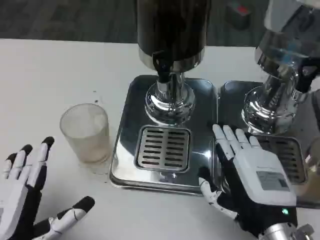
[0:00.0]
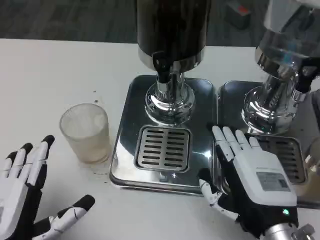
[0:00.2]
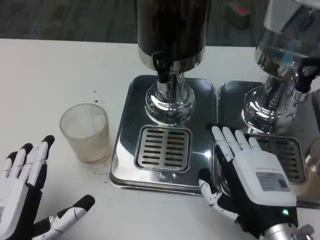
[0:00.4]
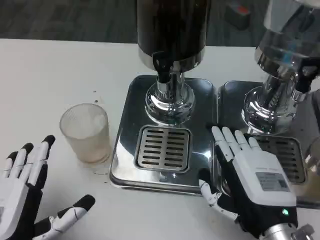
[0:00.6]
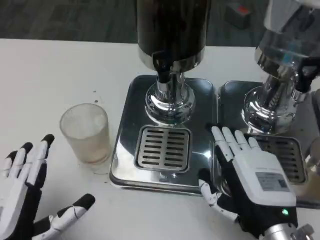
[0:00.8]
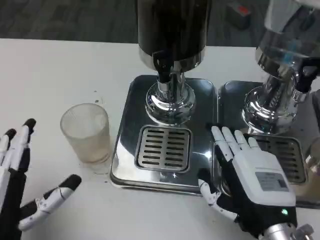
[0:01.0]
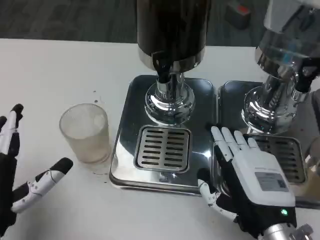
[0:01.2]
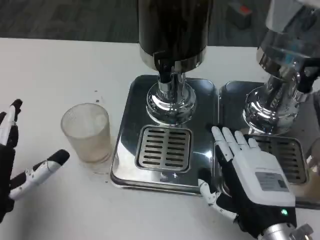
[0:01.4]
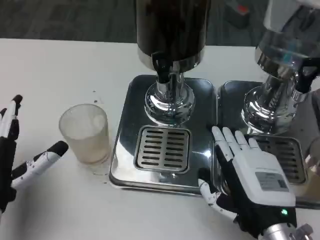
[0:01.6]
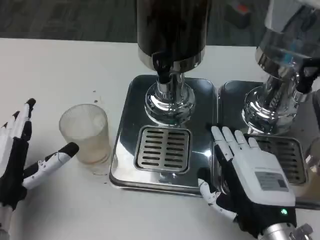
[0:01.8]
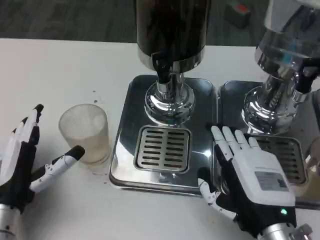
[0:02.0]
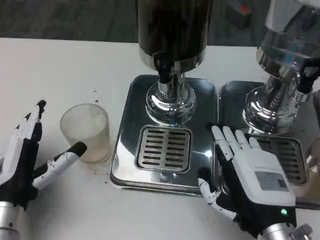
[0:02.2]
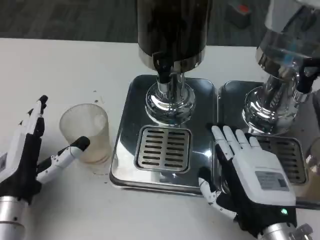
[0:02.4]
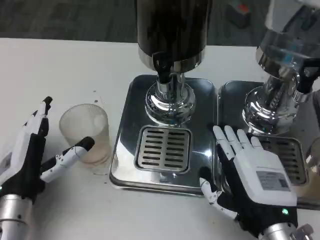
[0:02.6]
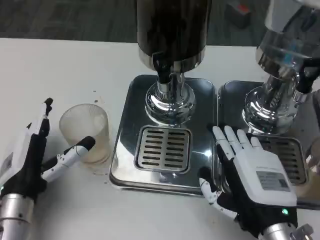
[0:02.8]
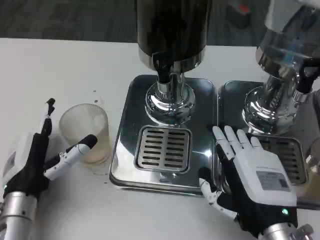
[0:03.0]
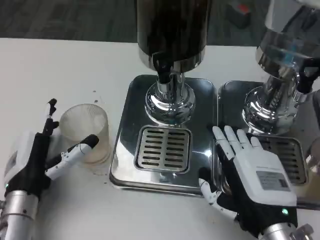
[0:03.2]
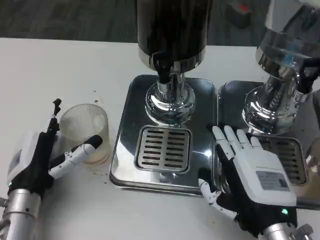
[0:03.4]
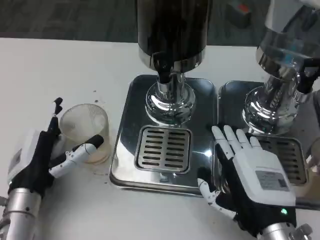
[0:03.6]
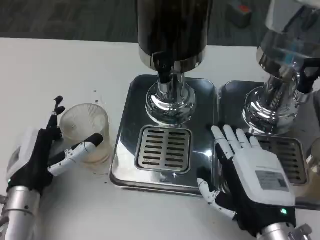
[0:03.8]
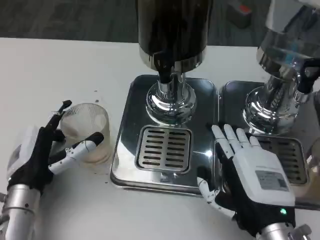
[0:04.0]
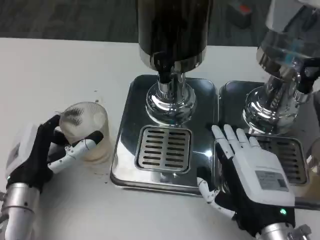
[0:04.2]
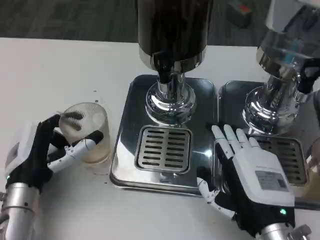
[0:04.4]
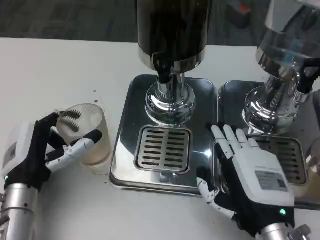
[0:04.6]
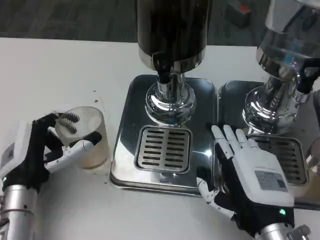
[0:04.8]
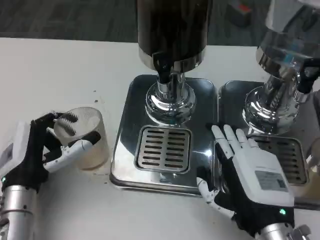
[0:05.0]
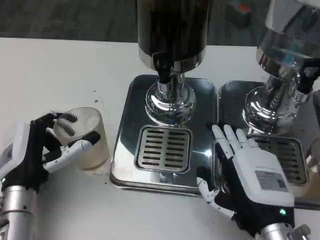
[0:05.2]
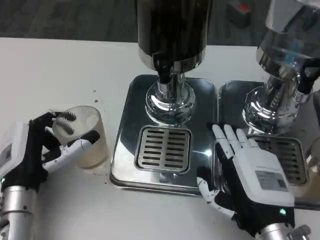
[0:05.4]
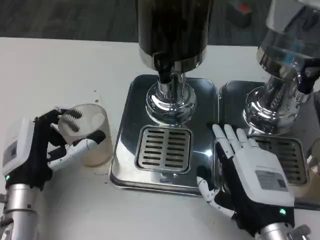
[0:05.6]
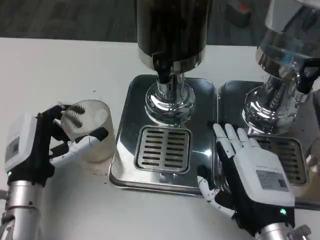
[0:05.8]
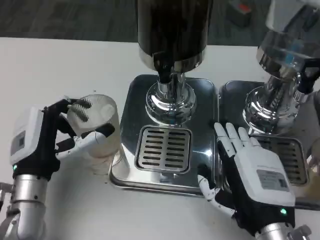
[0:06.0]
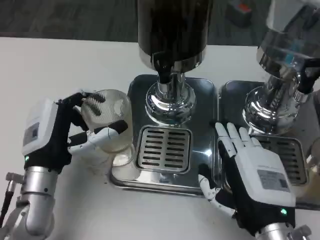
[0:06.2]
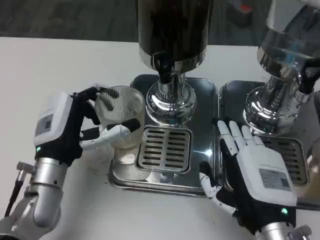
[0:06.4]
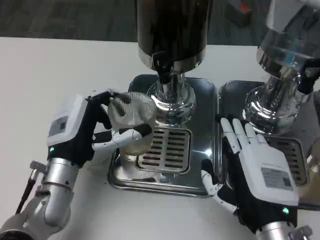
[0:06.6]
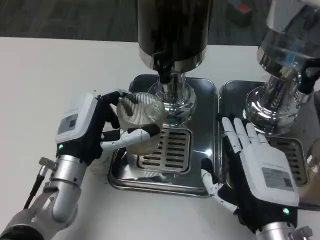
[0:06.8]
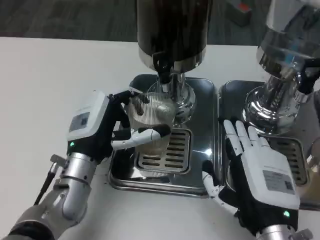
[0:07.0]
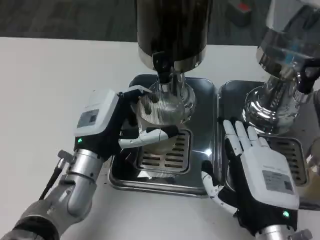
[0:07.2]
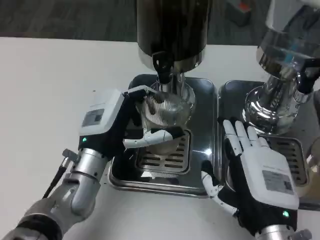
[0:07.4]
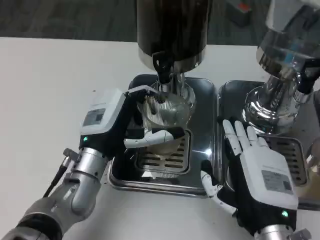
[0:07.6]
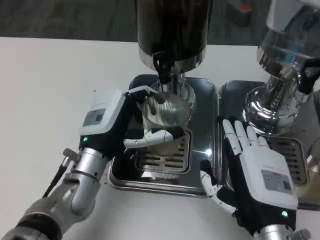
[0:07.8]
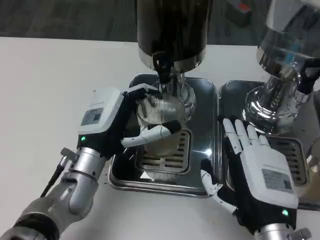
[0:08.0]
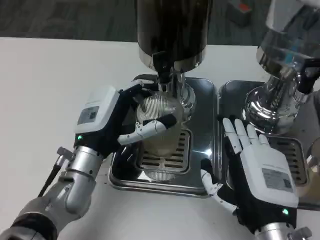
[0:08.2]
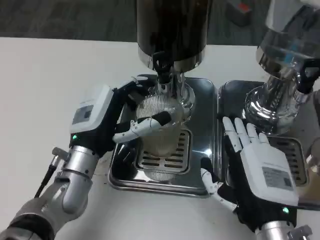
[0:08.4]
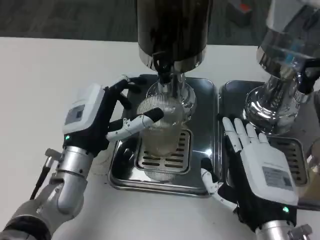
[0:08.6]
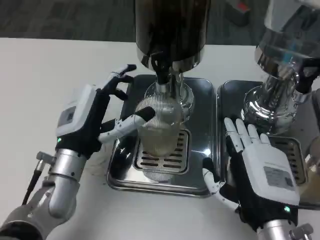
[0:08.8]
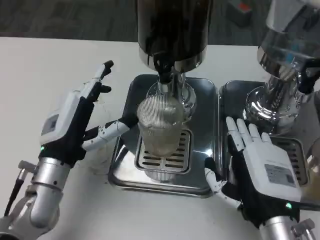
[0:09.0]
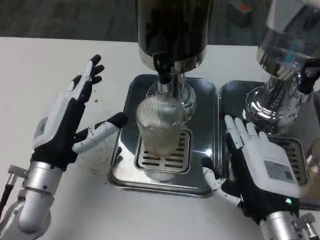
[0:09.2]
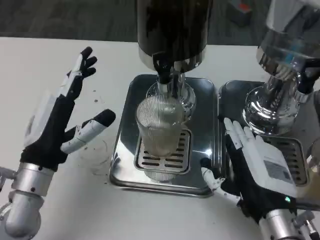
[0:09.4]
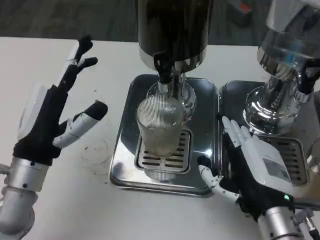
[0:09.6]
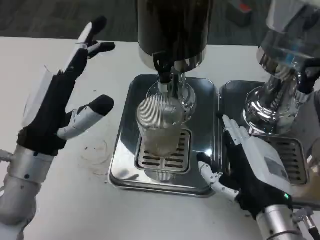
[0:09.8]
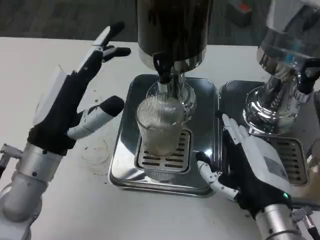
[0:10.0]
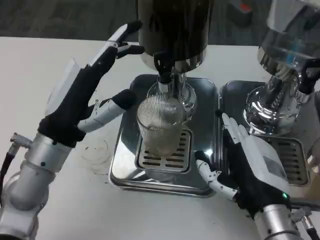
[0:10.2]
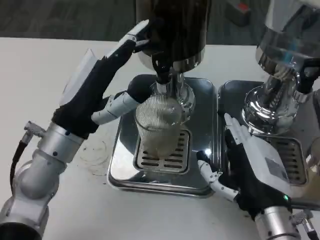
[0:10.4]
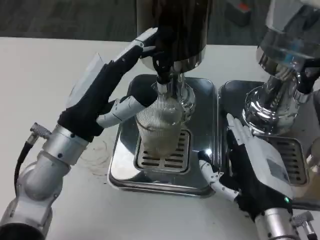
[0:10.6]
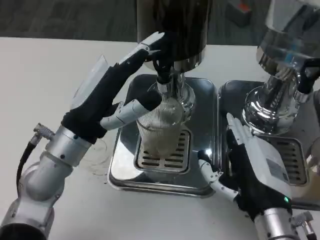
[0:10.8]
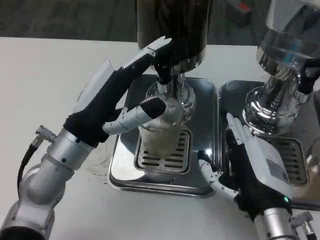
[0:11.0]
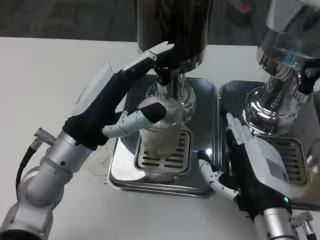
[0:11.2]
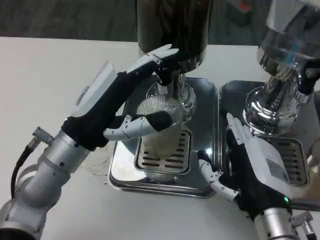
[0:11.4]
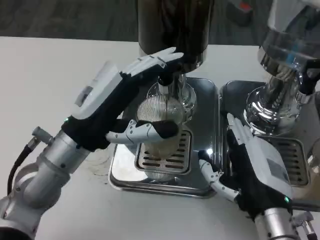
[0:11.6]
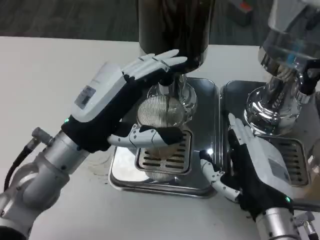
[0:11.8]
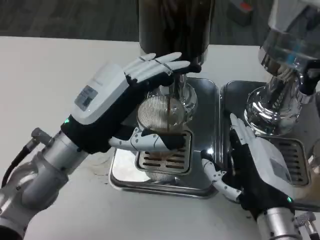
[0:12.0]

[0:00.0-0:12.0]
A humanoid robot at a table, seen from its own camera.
Task of the whole recording: Grasp the cup under the faucet to collect the drink, then remove the cup.
0:00.0 to 0:01.6: The left hand goes approximately 10 cm forward.
0:01.6 to 0:03.0: The left hand changes place by about 5 cm.
0:03.0 to 0:04.4: Both hands stay about where they are.
0:04.4 to 0:06.0: The hands move only a little.
0:06.0 to 0:07.6: The left hand goes about 5 cm to the right.
0:07.6 to 0:09.0: The left hand is displaced to the left by about 5 cm.
0:09.0 to 0:10.4: The left hand is displaced upward by roughly 5 cm.

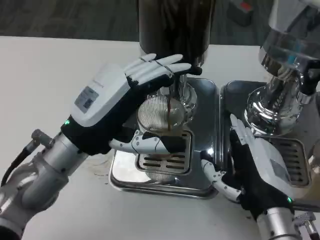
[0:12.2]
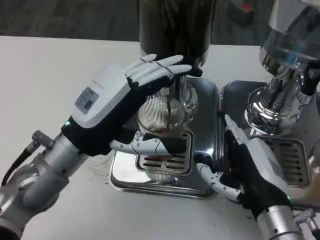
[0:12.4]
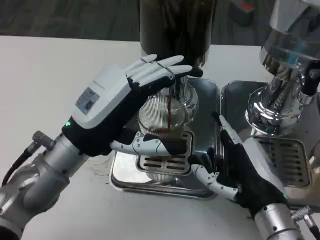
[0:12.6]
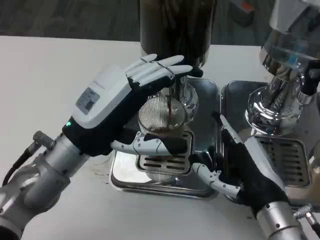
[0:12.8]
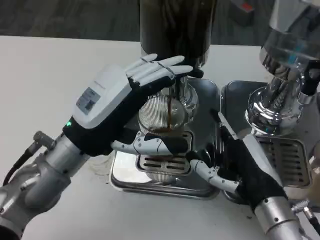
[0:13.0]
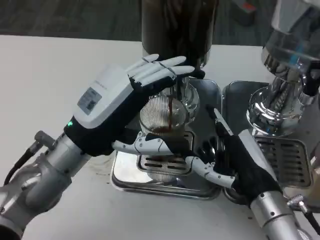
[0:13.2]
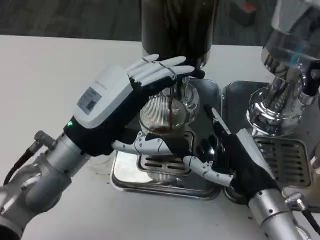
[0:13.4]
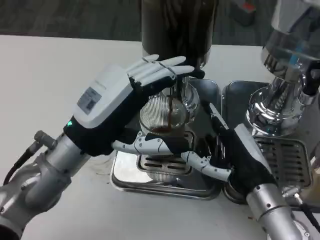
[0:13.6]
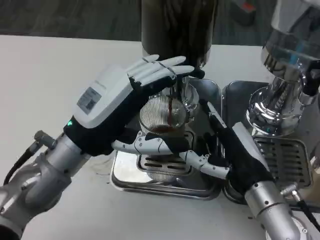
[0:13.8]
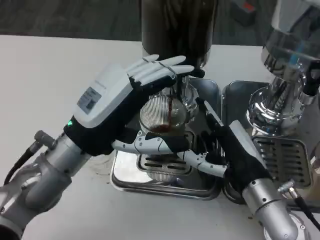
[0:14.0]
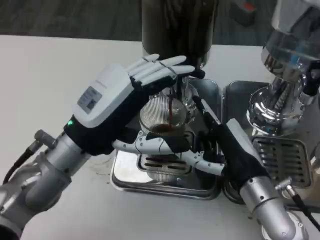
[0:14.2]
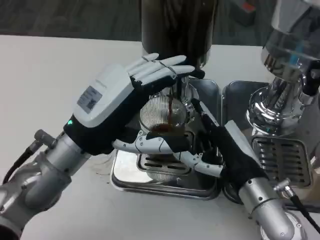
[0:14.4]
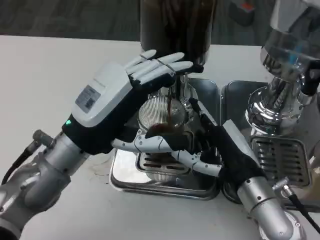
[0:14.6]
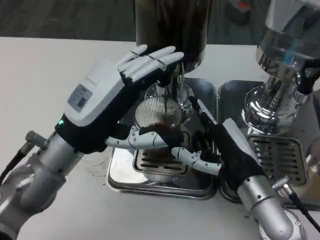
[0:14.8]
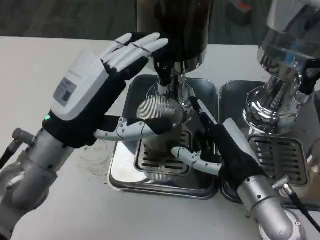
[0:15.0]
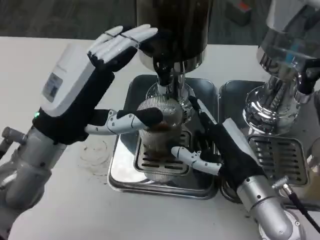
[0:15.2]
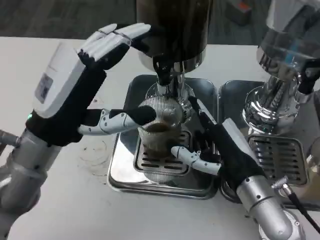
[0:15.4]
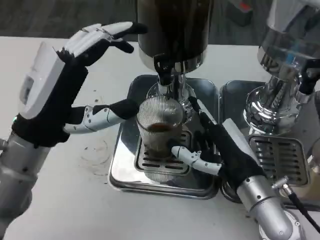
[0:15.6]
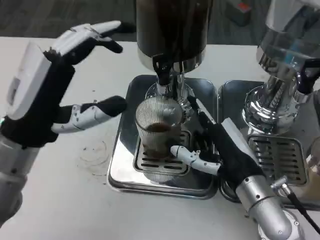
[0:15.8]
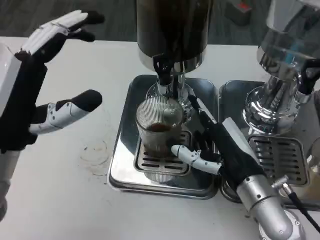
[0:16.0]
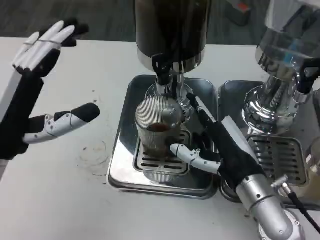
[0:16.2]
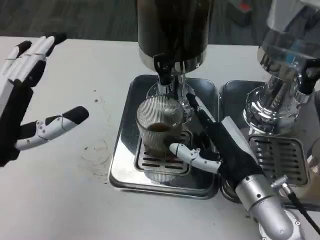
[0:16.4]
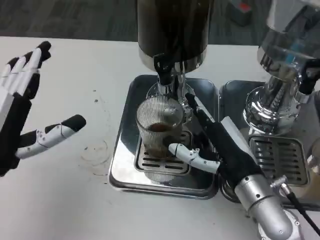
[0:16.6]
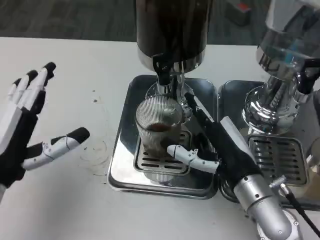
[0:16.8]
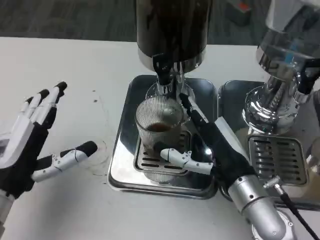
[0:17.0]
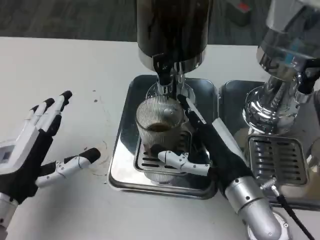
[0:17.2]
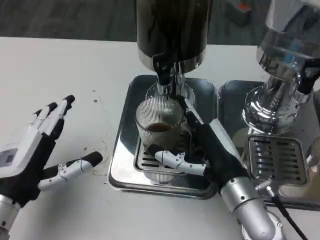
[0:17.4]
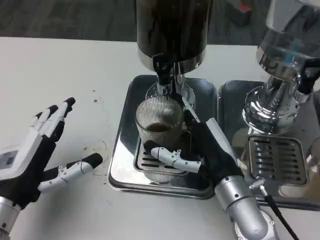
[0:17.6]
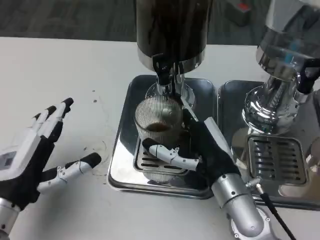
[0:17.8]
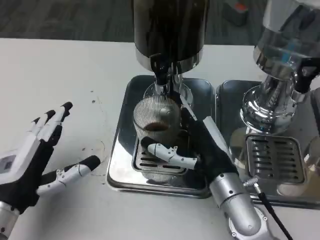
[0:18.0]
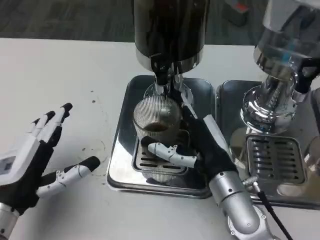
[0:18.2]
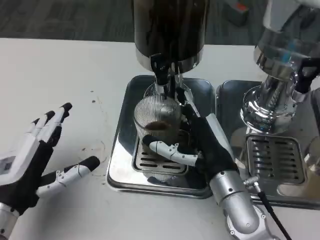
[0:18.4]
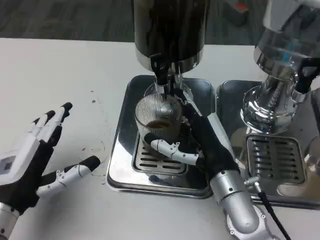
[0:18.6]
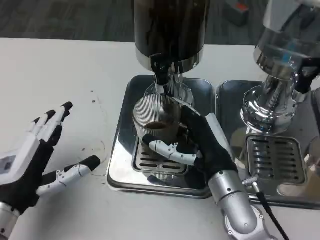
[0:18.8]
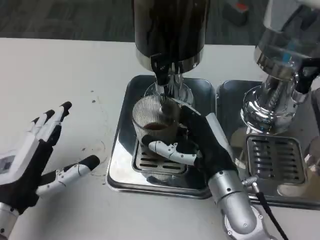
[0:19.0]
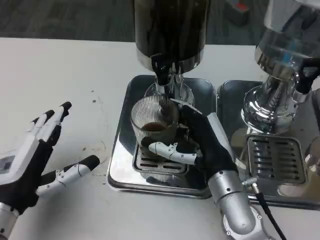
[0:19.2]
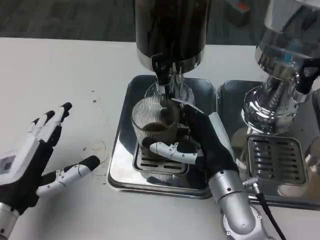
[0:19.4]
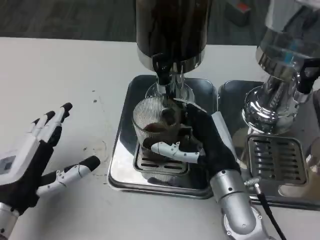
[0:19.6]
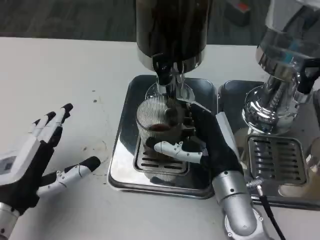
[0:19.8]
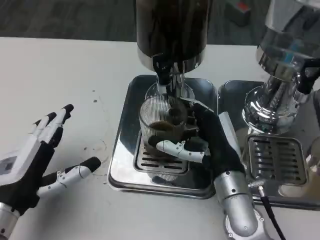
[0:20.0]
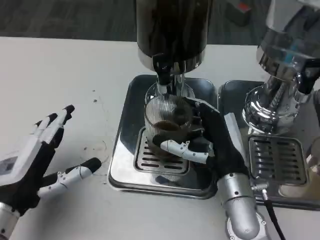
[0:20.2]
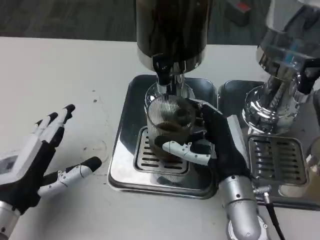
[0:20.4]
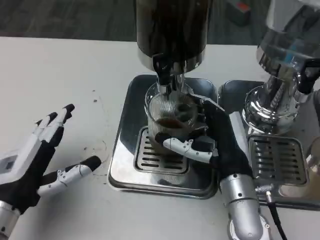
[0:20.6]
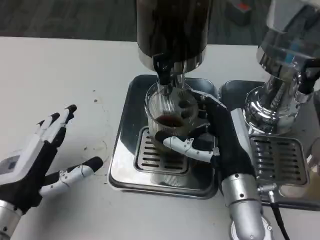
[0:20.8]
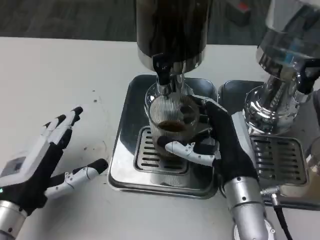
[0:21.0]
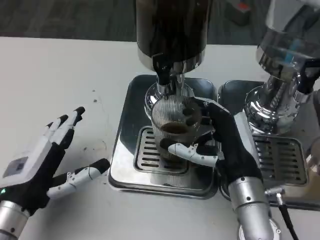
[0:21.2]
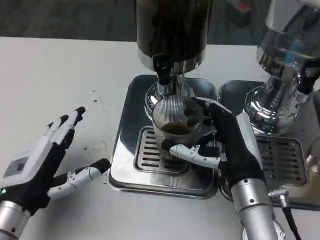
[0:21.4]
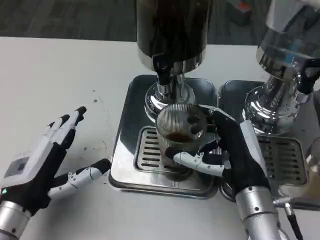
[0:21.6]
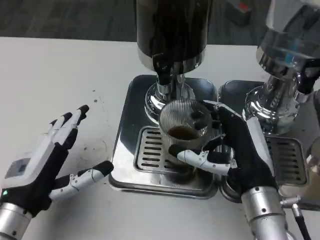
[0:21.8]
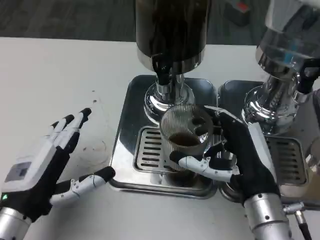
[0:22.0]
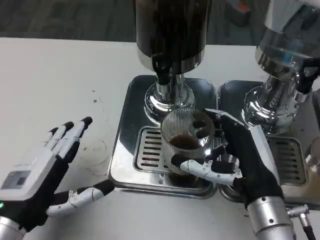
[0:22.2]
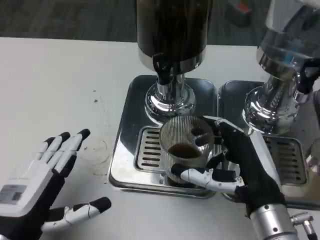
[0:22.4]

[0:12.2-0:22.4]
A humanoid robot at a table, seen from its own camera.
Task of the whole recording: Grasp the cup under the faucet to collect the drink, then remove the cup.
0:15.2 to 0:16.6: The left hand goes about 5 cm to the left.
0:16.6 to 0:18.0: The left hand moves roughly 5 cm.
0:18.0 to 0:19.4: The hands move only a little.
0:21.0 to 0:22.4: The right hand shifts by roughly 5 cm.
